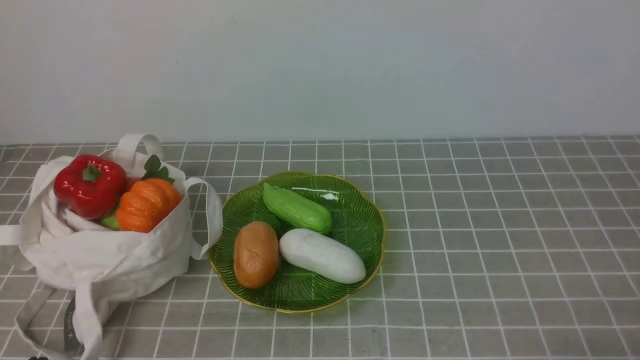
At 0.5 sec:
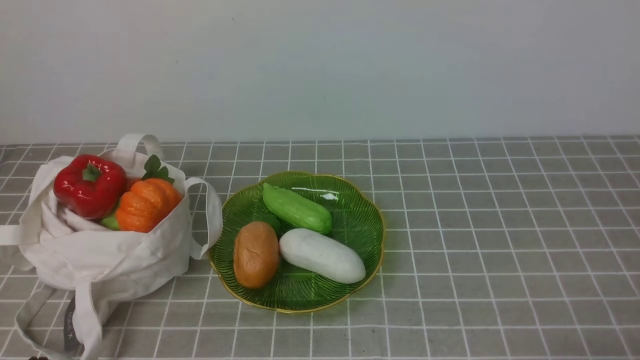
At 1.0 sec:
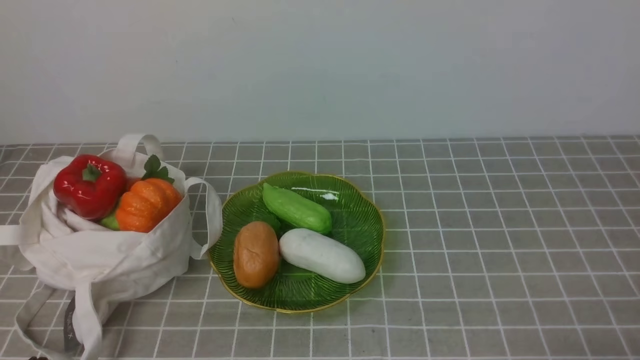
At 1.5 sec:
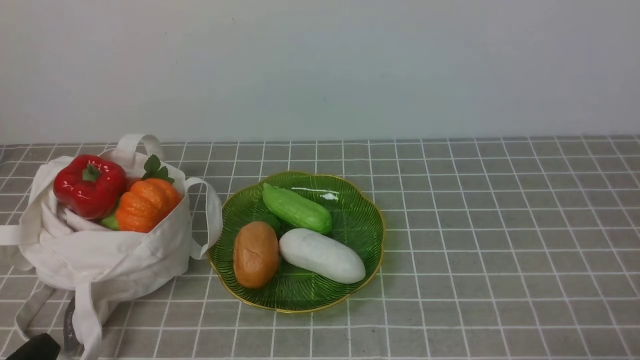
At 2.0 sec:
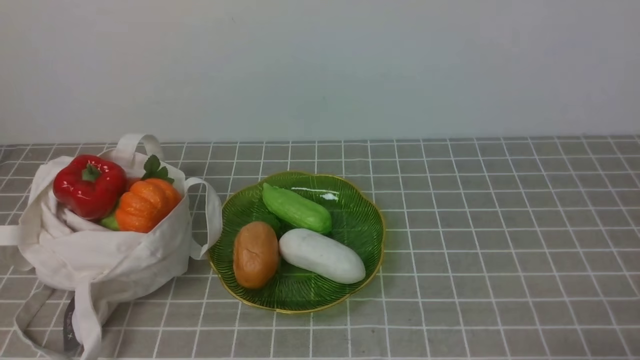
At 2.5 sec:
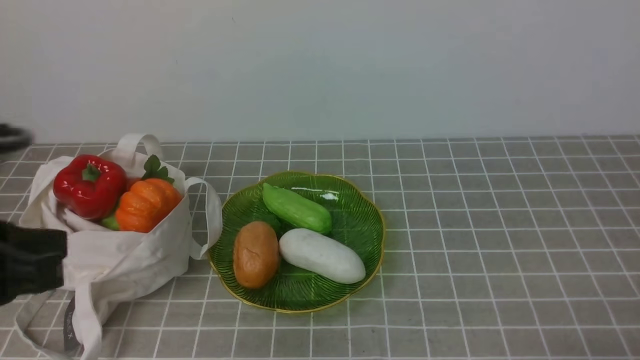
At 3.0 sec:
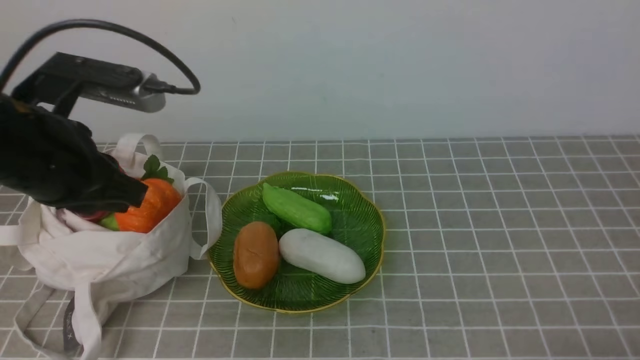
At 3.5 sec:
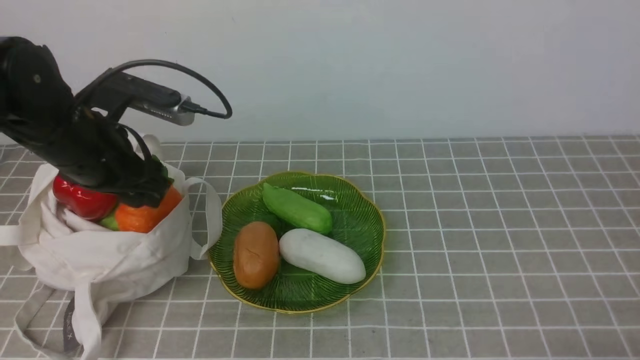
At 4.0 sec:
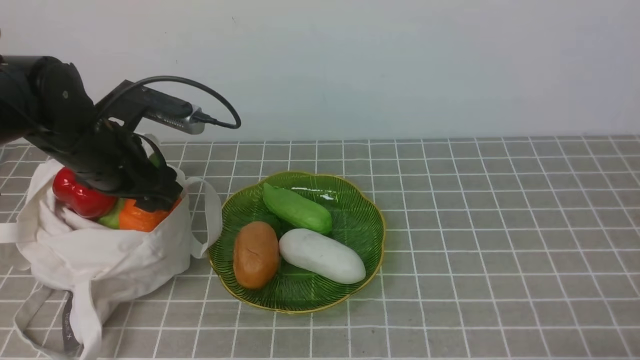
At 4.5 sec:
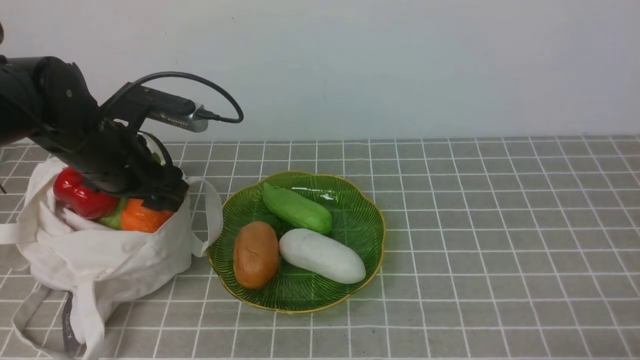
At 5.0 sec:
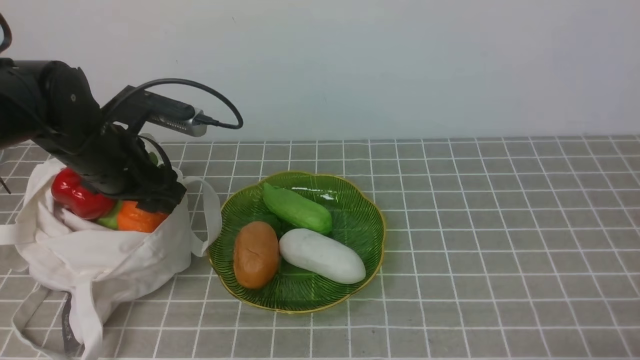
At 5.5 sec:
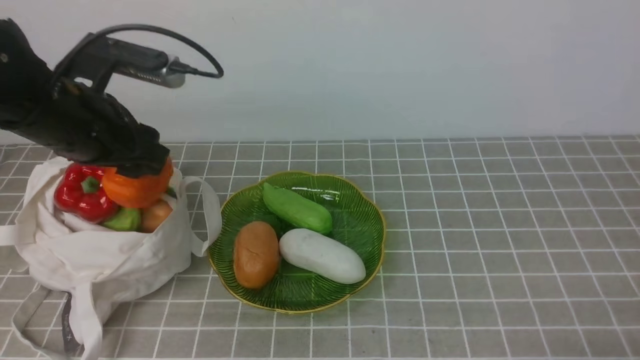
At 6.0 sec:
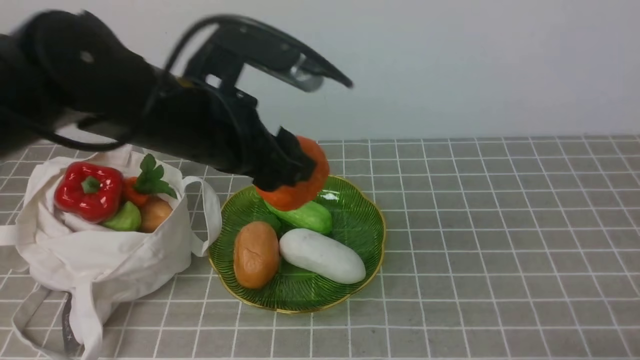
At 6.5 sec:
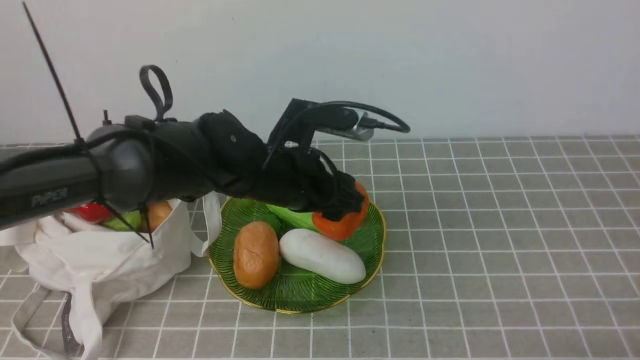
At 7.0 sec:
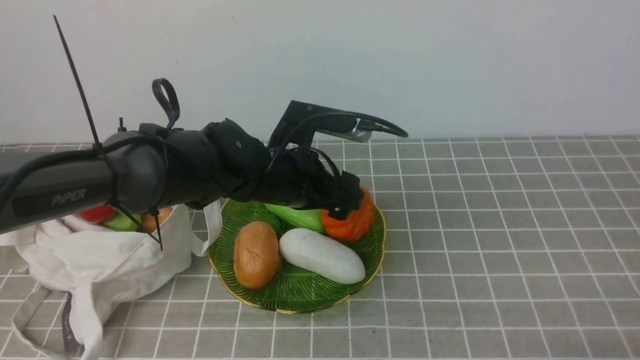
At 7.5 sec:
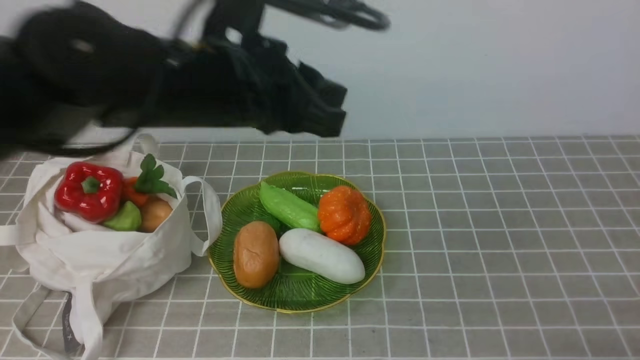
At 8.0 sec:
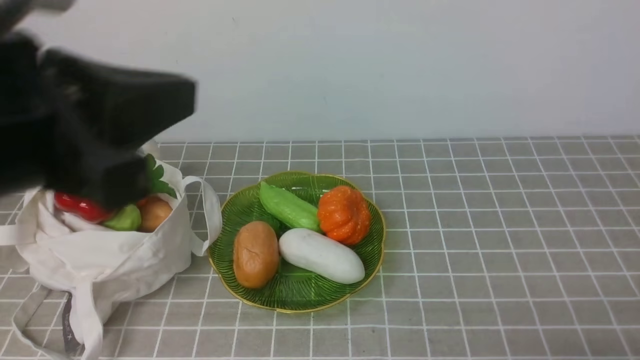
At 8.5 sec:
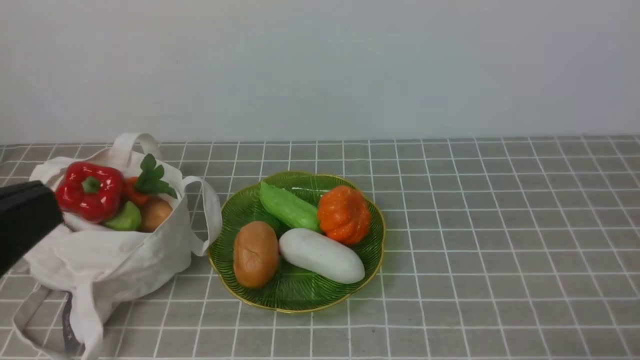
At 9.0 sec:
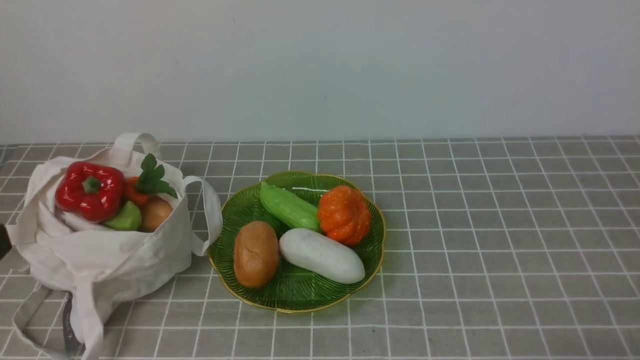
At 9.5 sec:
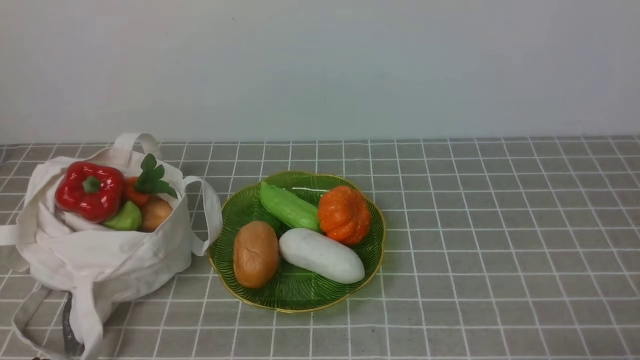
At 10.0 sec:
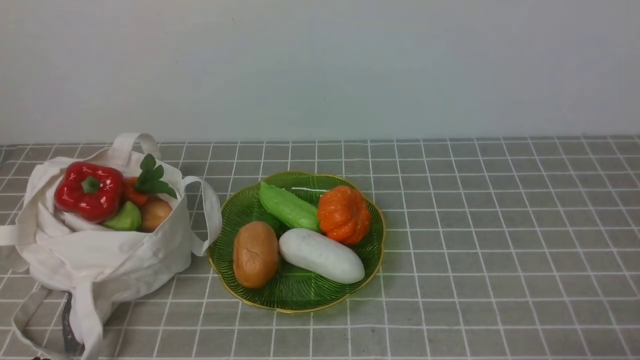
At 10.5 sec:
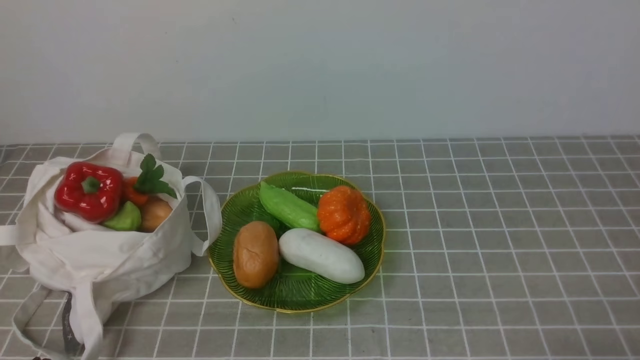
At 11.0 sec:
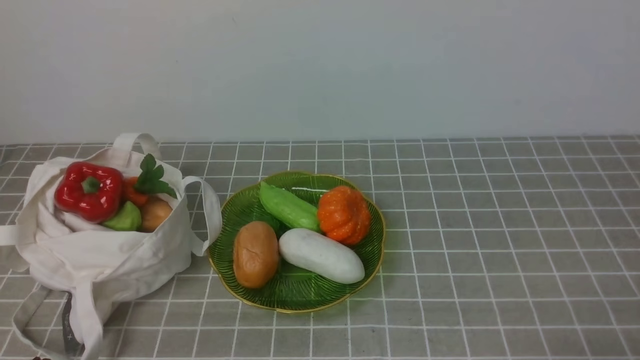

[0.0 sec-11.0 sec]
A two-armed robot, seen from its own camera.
Task of the whole recording: take vegetables from bag on grey coffee tablecloth place on plate.
Step, 0.0 sec to 5.0 sec: Grasp the pumpkin with left gripper.
Step, 5.5 sec to 7.0 sec: Place the pumpkin on the plate with left gripper.
2.0 sec to 3.5 sec: The left gripper goes about 30 cm forward, and opens.
3.5 sec to 5.5 sec: The grippers make only small movements.
5.5 sec to 7.5 sec: The left gripper shifts about 15 cm to the right and upward, and closes its fingers.
7.5 sec to 9.0 sec: The left gripper moves backward and to the left, approximately 25 cm.

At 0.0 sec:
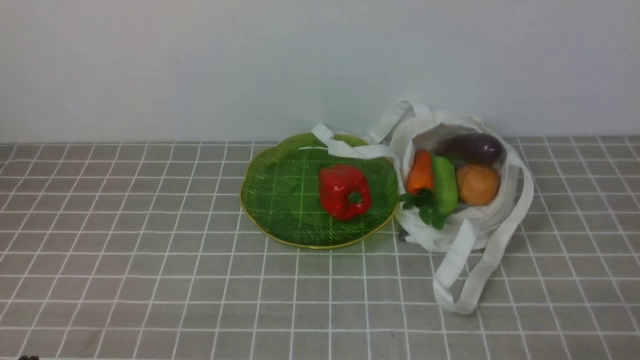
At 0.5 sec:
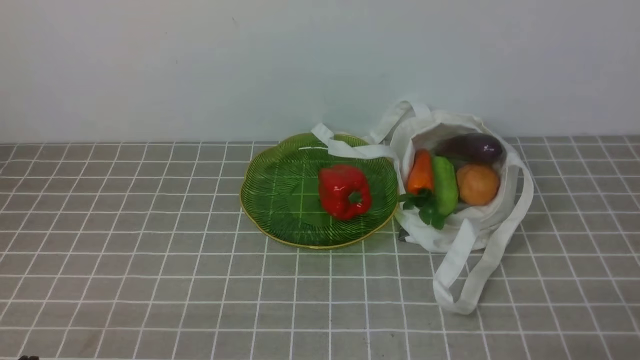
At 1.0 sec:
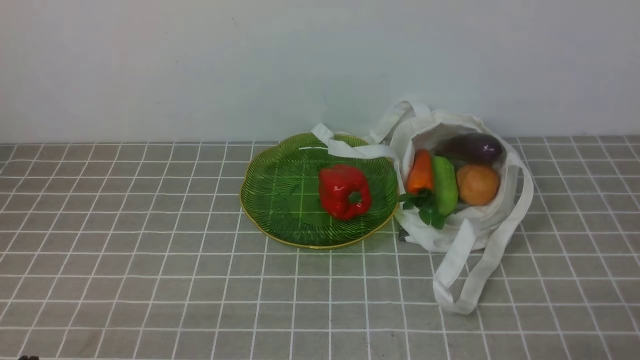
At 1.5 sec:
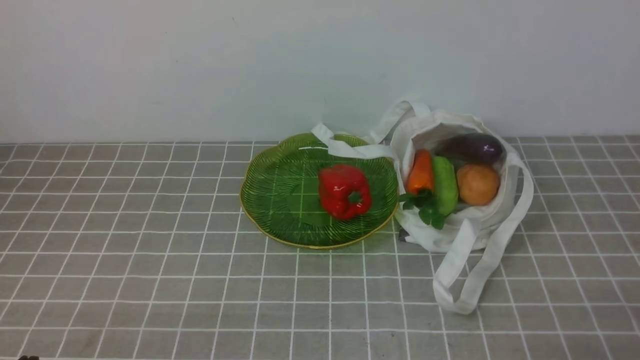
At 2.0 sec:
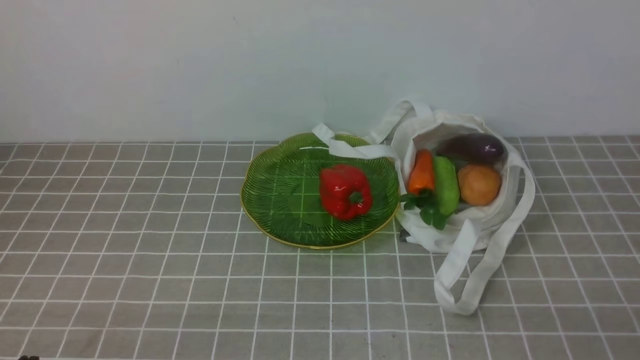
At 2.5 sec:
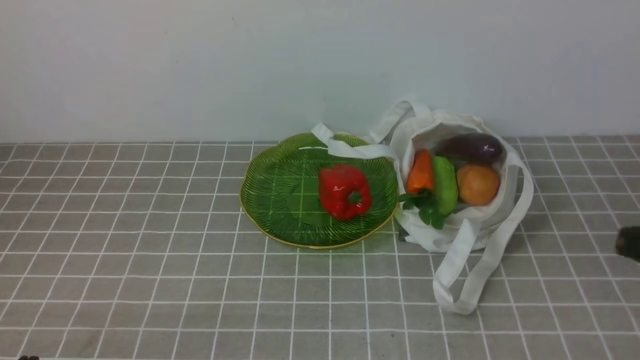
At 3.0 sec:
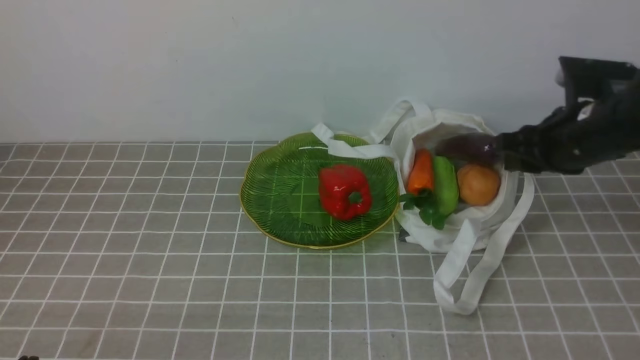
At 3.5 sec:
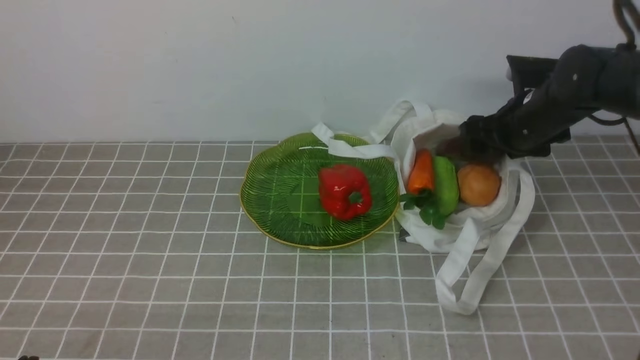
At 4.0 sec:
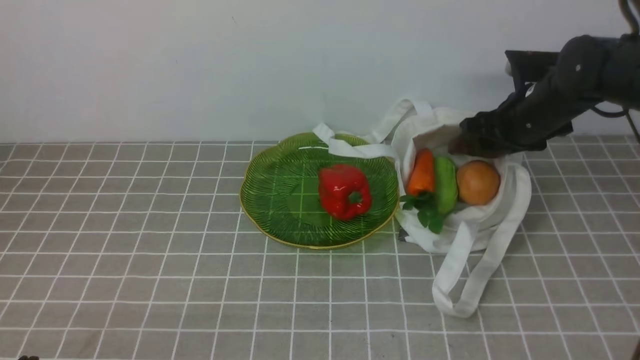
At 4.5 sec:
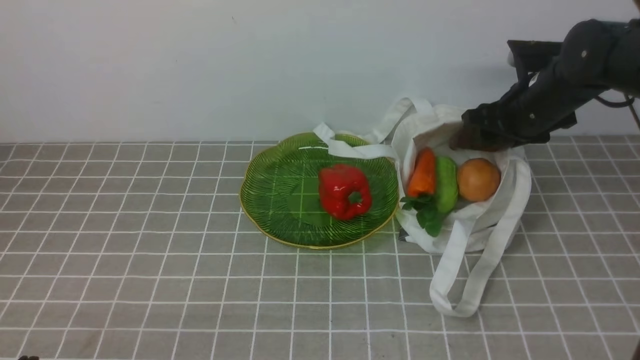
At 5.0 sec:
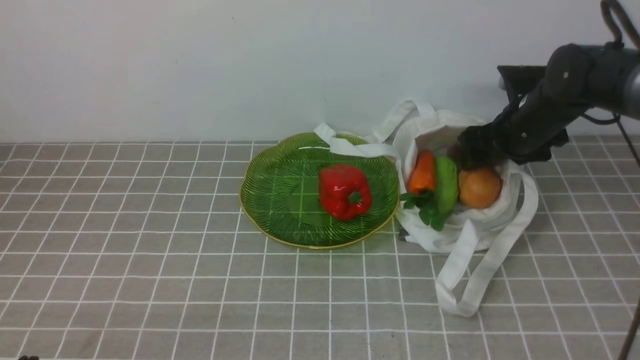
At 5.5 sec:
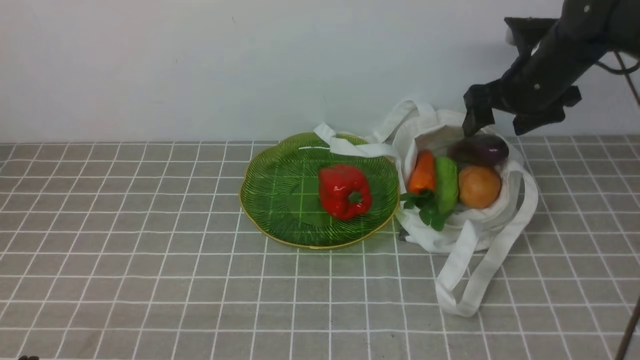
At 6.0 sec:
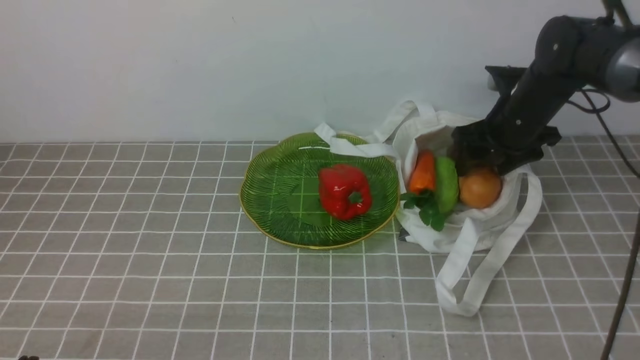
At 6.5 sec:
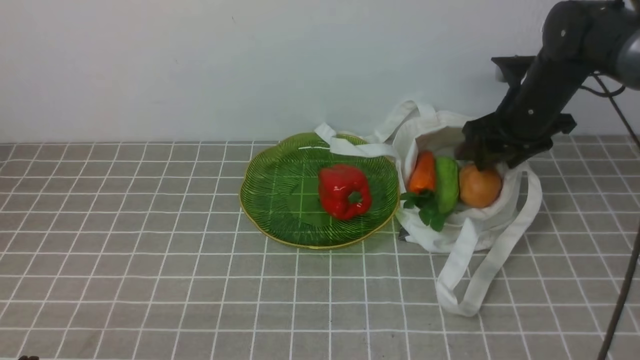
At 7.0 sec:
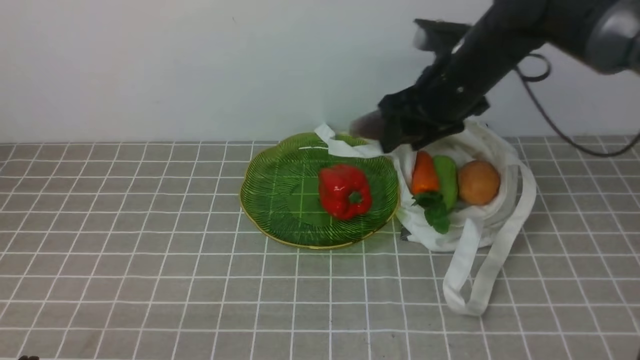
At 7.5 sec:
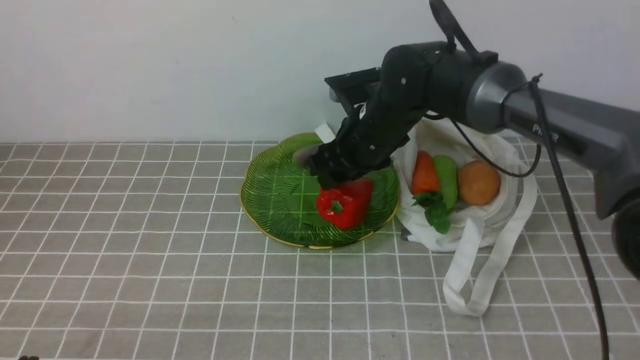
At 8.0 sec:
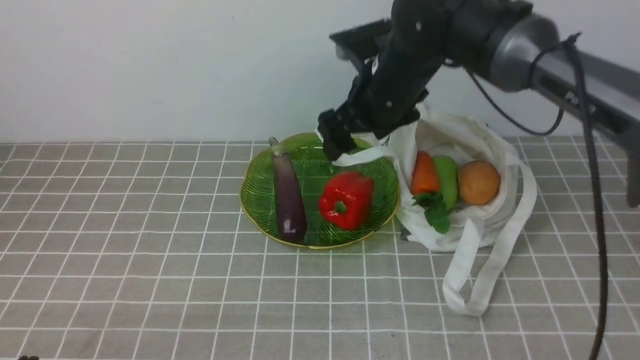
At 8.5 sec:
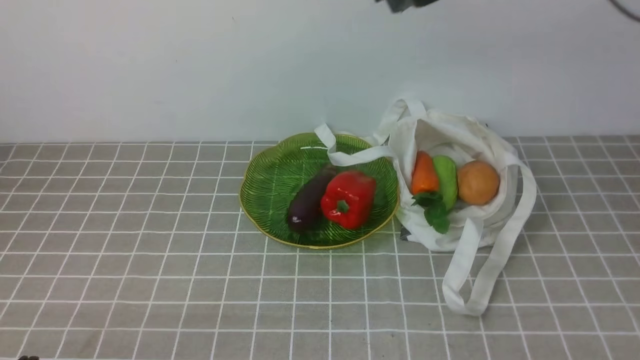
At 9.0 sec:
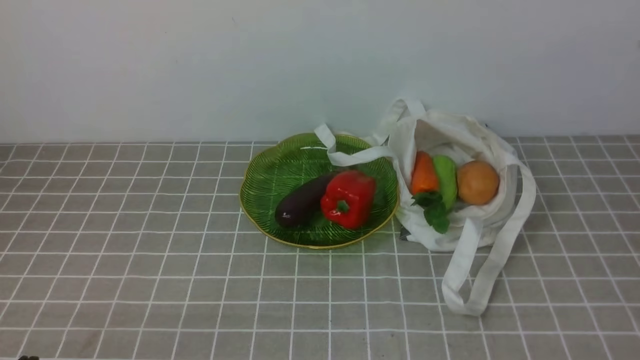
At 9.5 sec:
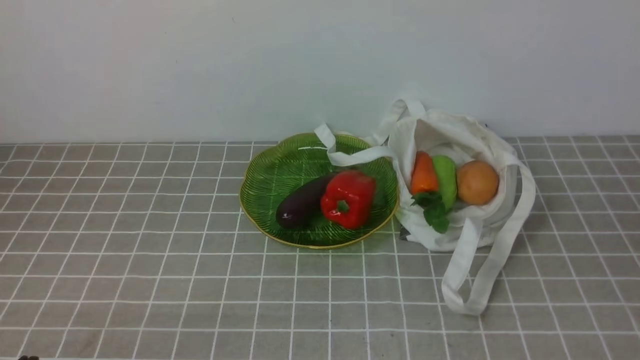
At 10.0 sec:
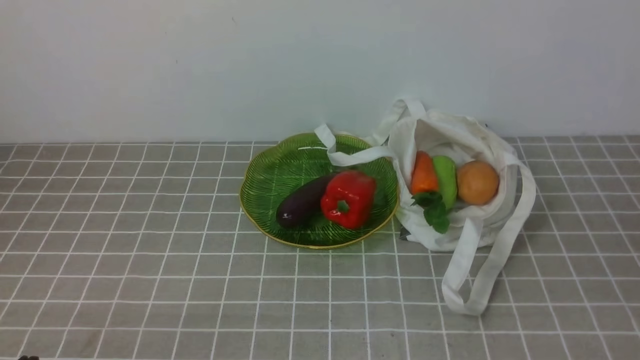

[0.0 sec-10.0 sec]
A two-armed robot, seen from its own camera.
Task of the whole recording: take vegetables from bag on grey coffee tablecloth place on plate.
Step, 0.0 sec to 6.0 sec: Grasp the eggplant with right gripper.
Step, 6.5 sec to 8.0 sec: Place the eggplant on the plate with right gripper.
2.0 sec to 4.0 sec: The right gripper goes approximately 40 cm forward, and opens up.
4.0 sec to 6.0 sec: The grippers make only small movements.
6.0 sec to 8.0 sec: The right gripper goes roughly 20 cm to the left and upward.
8.0 sec to 10.0 sec: The right gripper is displaced backward and to the right by some 40 cm, and closes.
